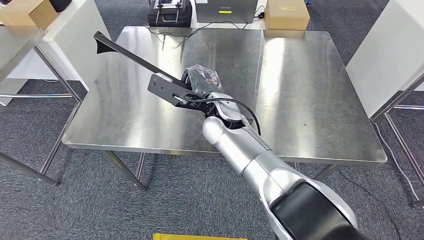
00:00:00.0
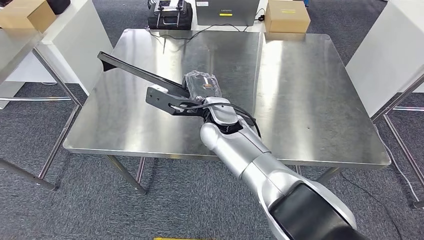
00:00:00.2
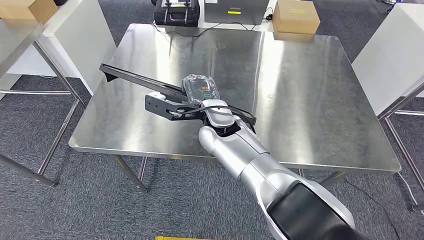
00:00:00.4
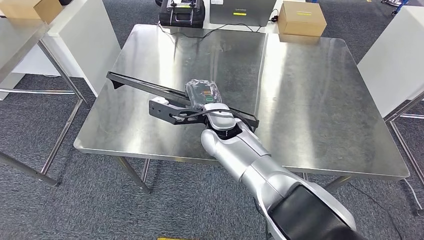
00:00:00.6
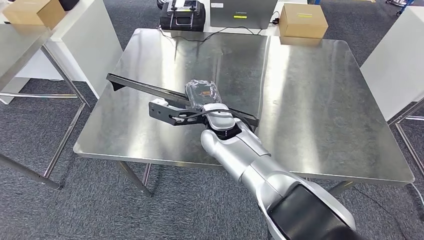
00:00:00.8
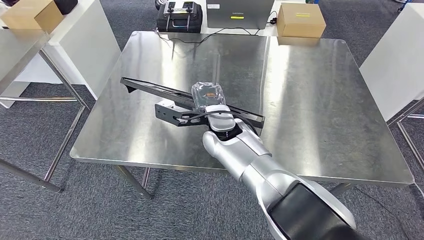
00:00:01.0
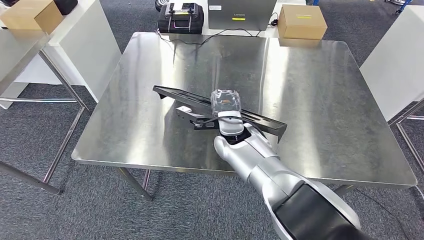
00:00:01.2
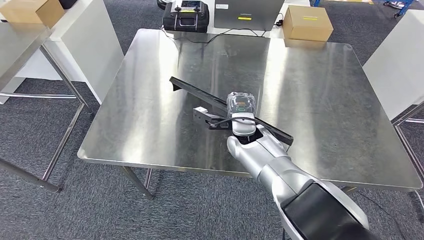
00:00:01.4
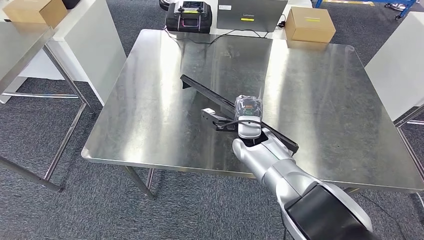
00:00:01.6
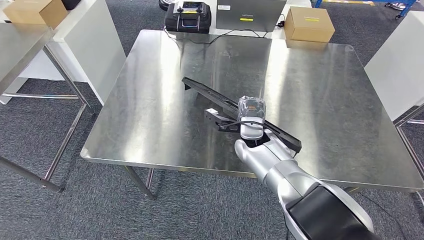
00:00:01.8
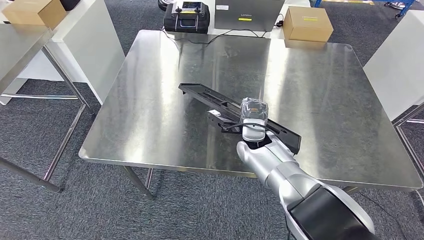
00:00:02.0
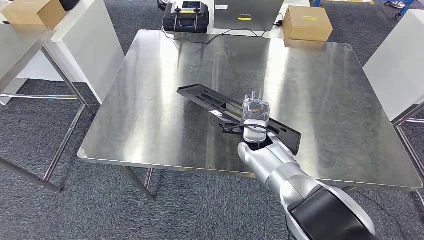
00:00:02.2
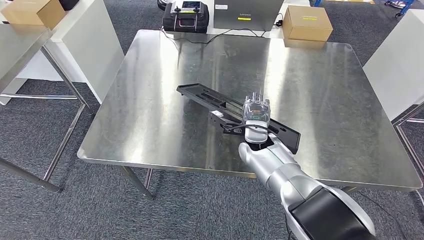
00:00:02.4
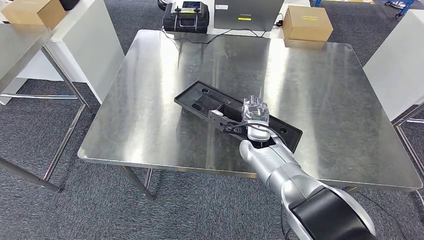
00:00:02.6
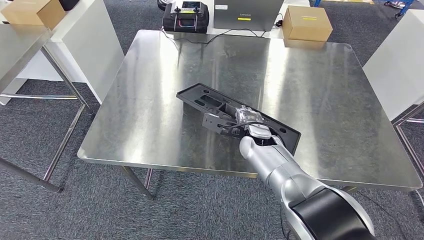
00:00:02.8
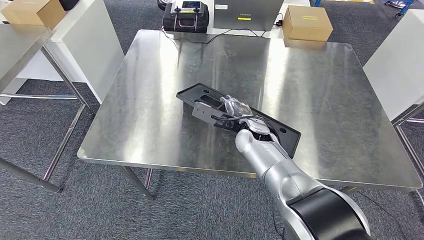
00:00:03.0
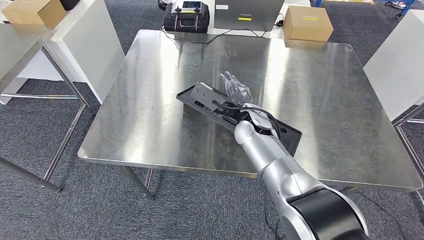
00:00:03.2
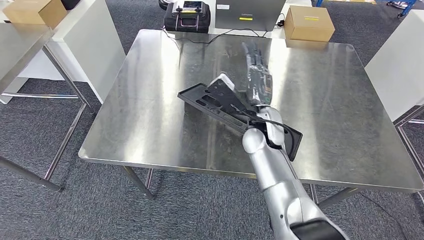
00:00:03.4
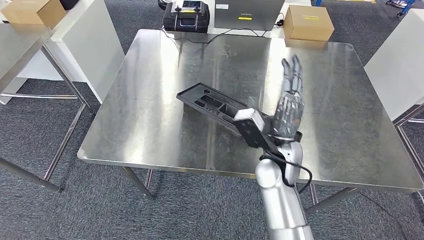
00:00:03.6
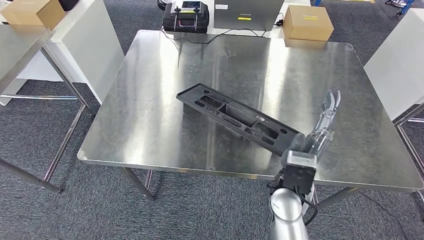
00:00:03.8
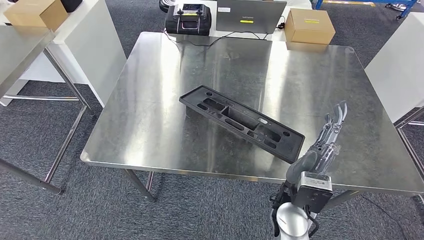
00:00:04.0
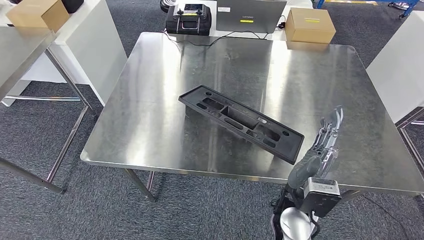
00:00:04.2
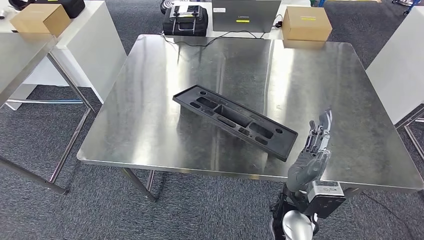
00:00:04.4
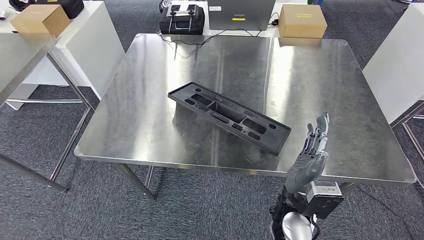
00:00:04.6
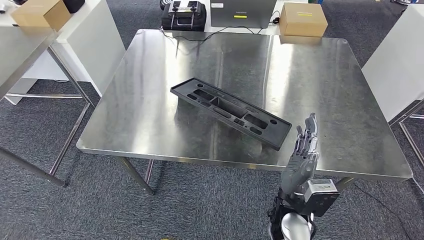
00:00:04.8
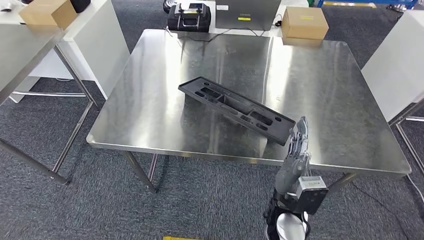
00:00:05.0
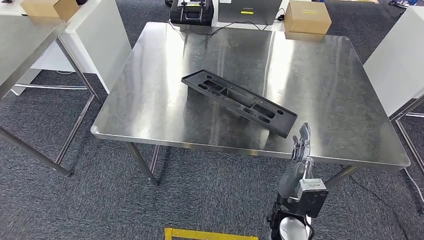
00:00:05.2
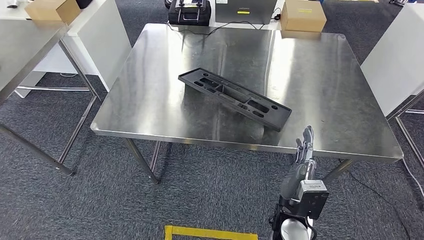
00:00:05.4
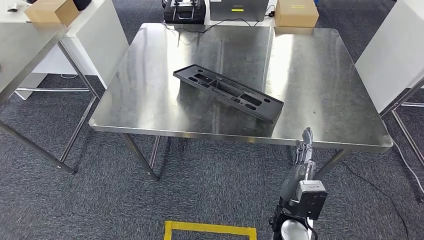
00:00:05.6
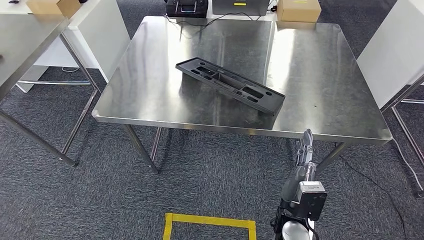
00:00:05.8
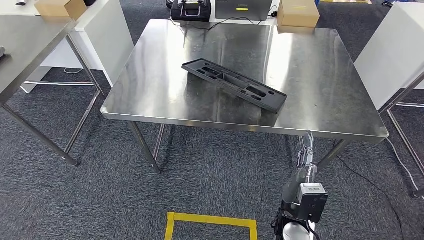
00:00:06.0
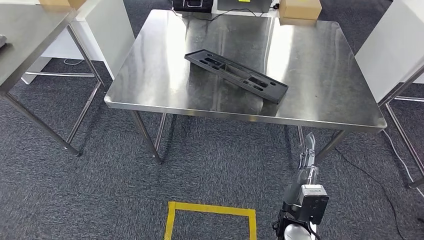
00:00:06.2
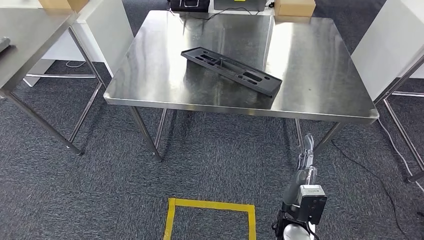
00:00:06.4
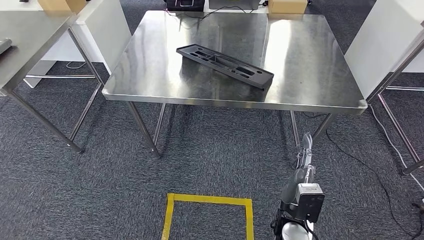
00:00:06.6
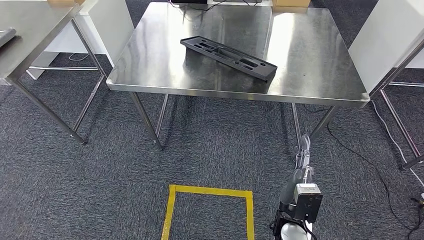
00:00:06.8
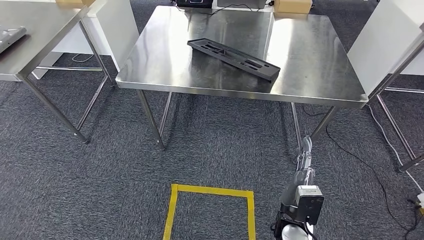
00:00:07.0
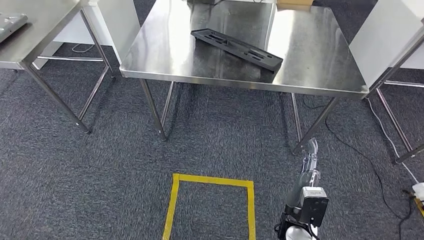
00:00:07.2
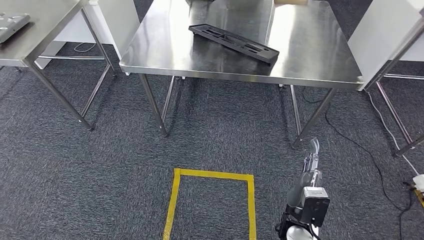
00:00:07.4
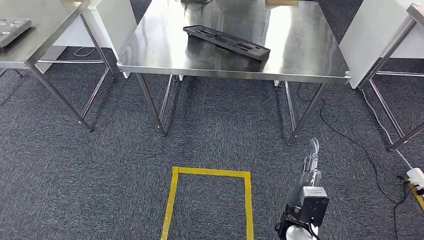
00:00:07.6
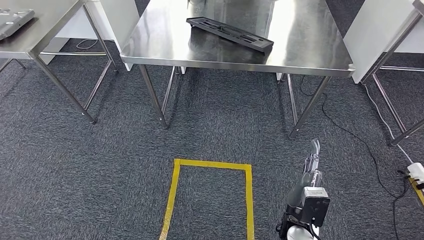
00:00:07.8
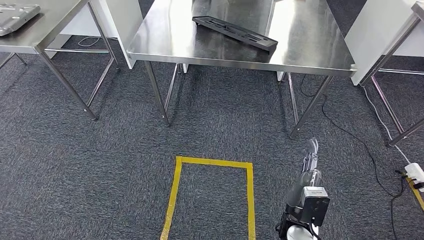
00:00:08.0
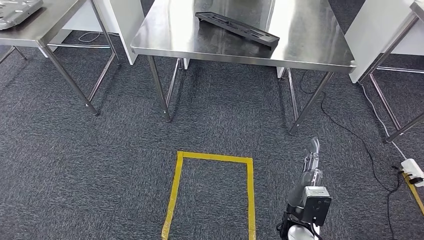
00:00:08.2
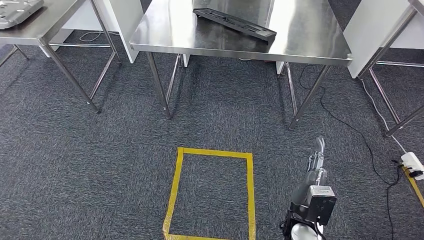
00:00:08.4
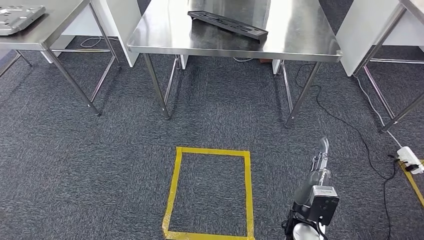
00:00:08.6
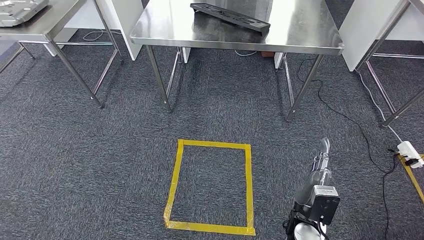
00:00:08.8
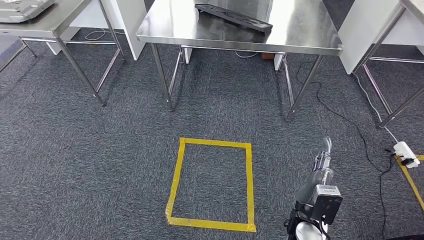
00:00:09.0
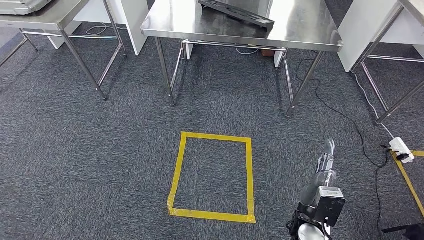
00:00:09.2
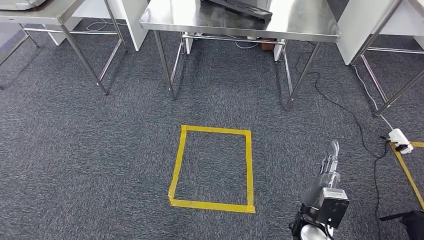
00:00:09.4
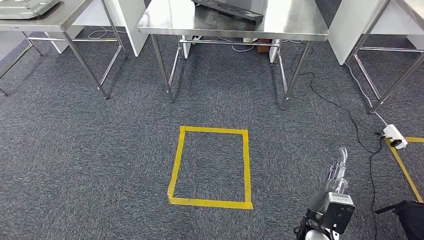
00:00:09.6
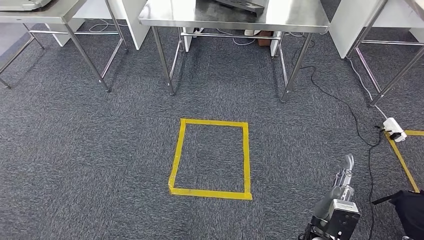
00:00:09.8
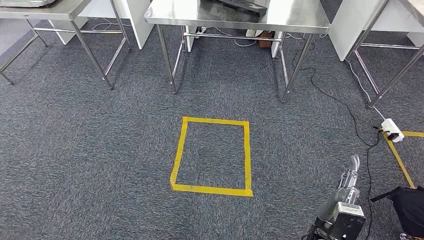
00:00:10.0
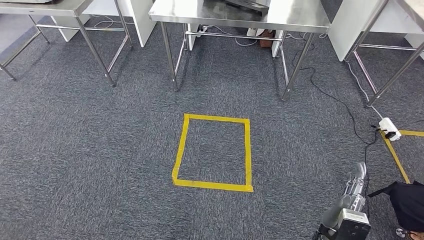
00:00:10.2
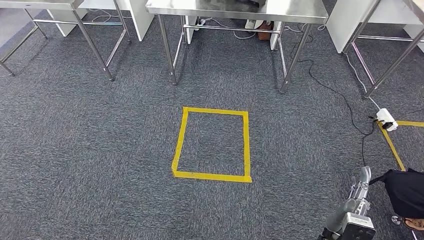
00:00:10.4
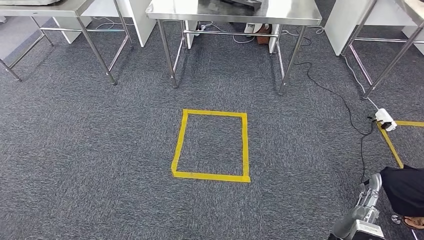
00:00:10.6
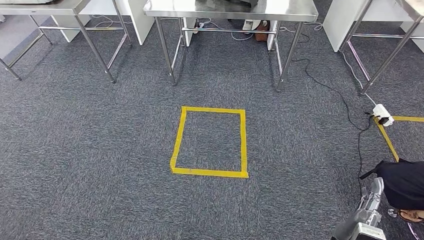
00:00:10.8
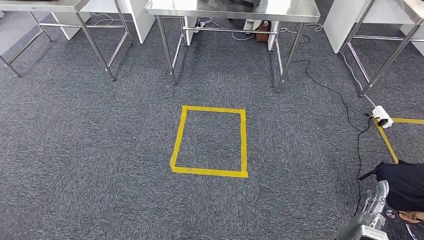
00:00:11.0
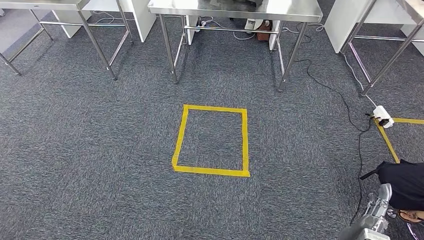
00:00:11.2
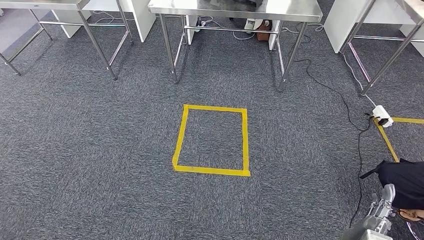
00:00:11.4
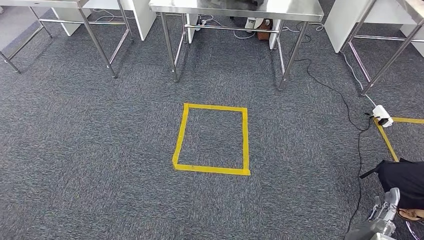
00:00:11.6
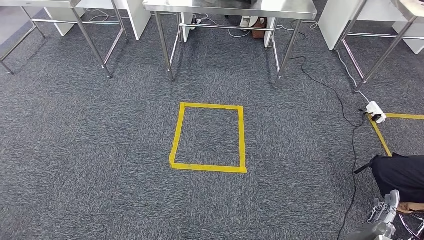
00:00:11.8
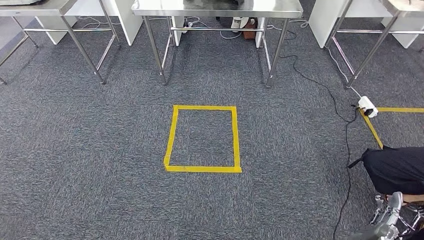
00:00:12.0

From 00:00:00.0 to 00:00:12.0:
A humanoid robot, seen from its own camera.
Step, from 00:00:00.0 to 00:00:04.6: Insert the large material into the corresponding hole on the workbench.

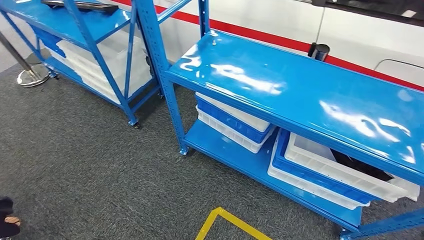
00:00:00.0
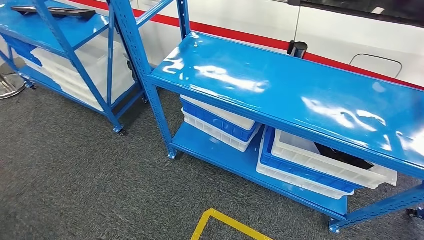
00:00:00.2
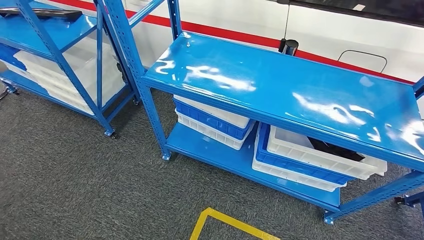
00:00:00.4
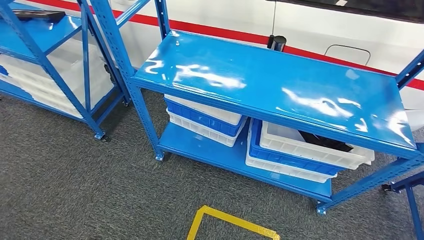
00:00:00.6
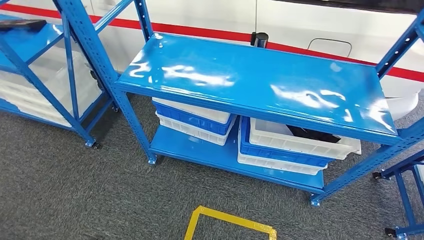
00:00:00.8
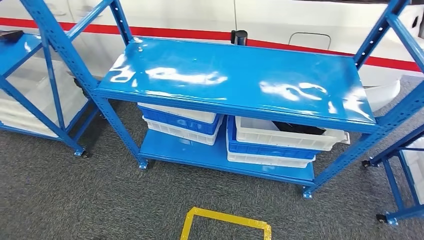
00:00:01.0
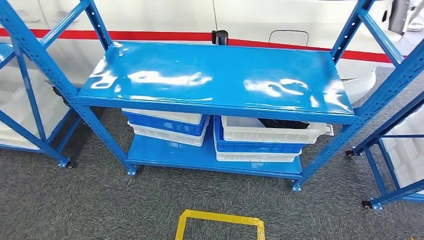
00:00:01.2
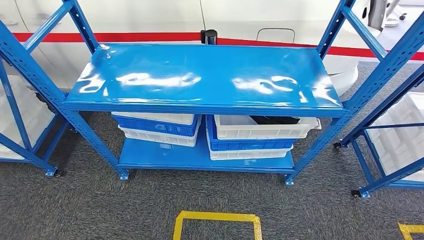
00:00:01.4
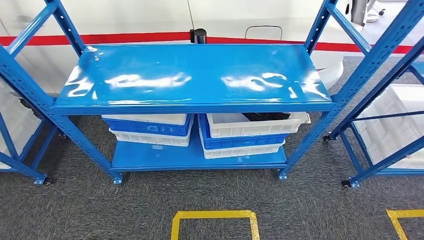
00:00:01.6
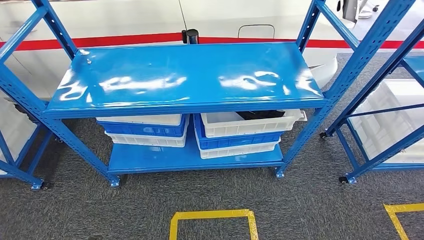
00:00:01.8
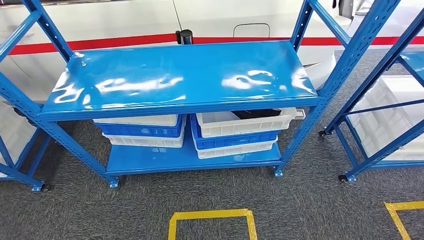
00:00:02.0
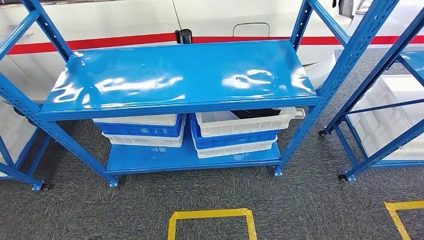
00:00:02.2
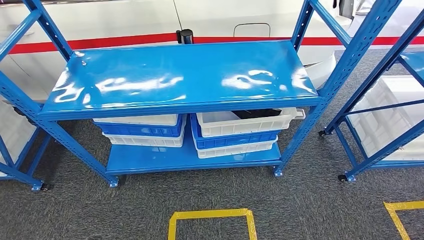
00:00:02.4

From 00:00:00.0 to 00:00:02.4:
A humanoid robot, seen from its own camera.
Step, from 00:00:00.0 to 00:00:02.4: Move to the initial position of the shelf.
